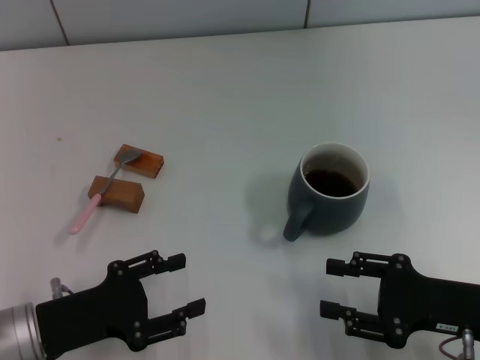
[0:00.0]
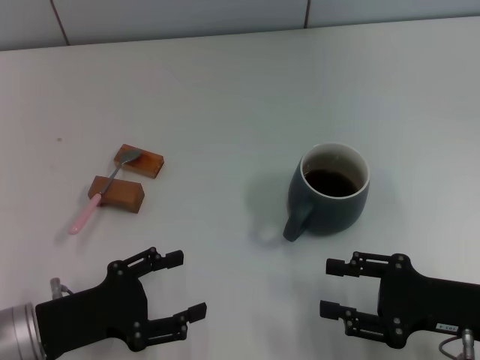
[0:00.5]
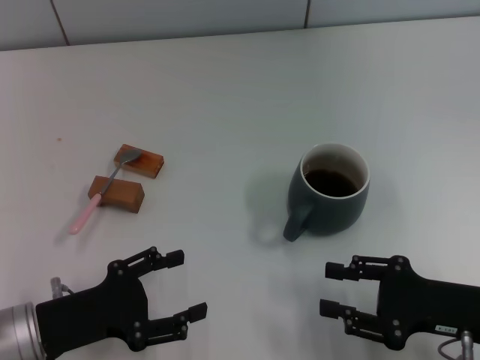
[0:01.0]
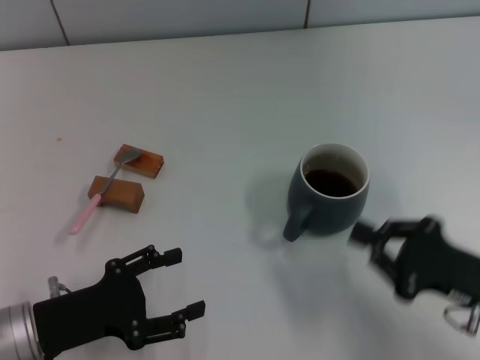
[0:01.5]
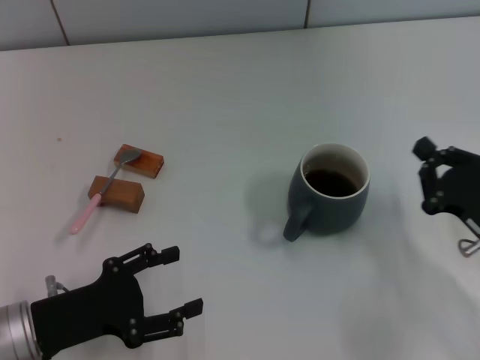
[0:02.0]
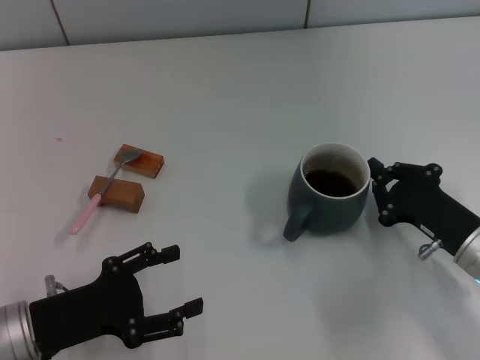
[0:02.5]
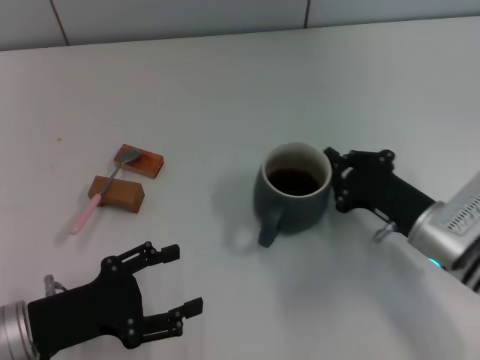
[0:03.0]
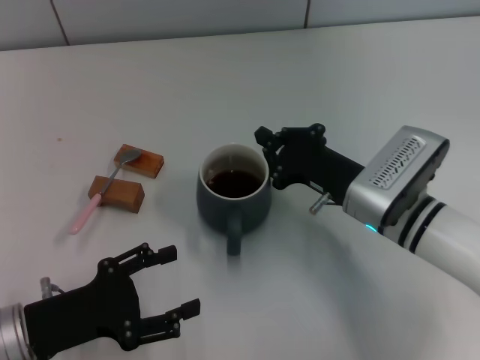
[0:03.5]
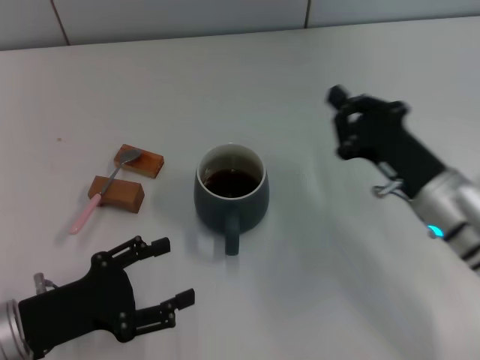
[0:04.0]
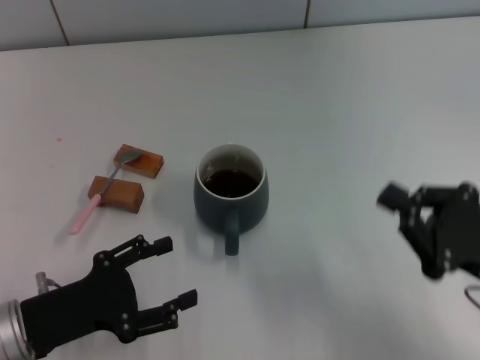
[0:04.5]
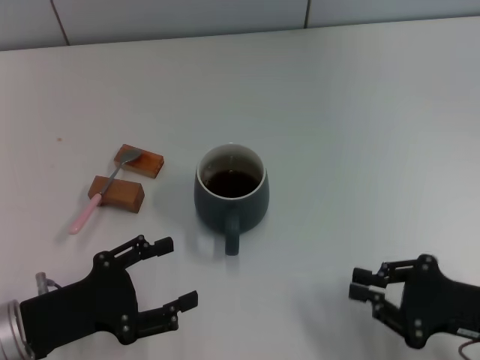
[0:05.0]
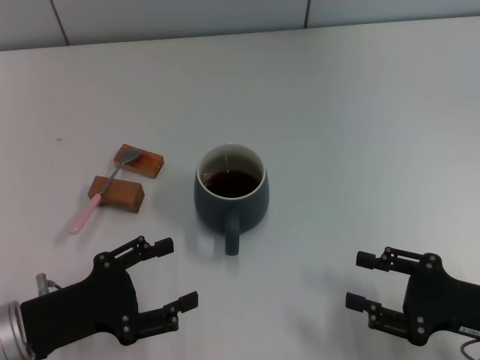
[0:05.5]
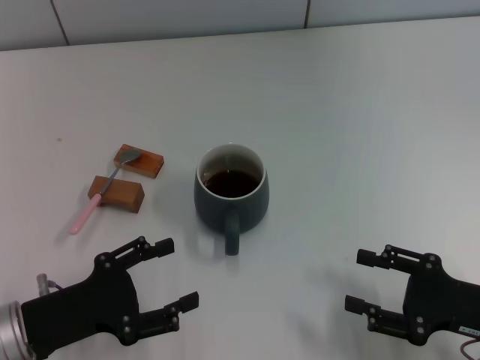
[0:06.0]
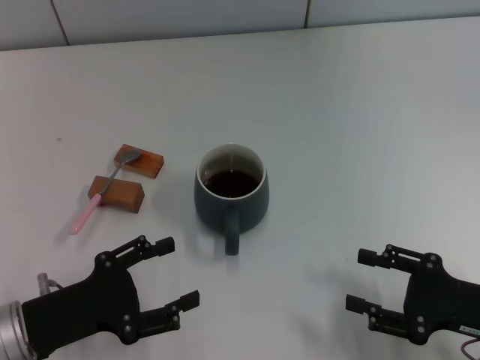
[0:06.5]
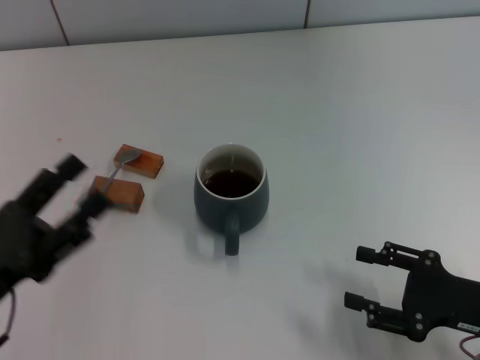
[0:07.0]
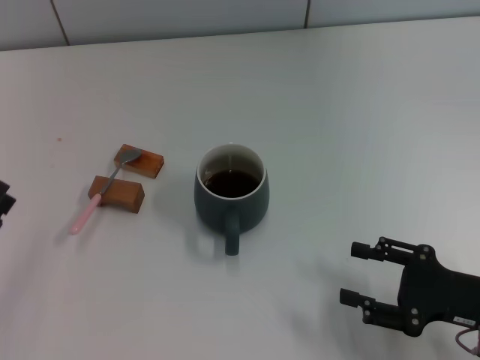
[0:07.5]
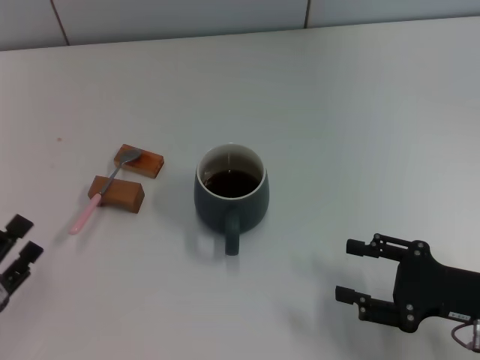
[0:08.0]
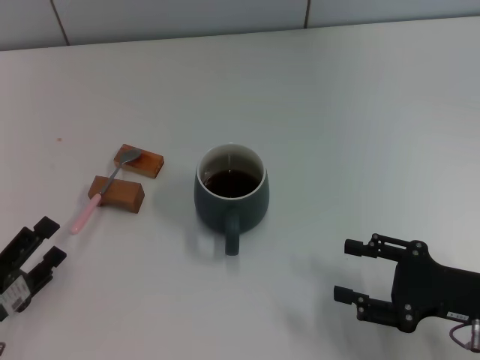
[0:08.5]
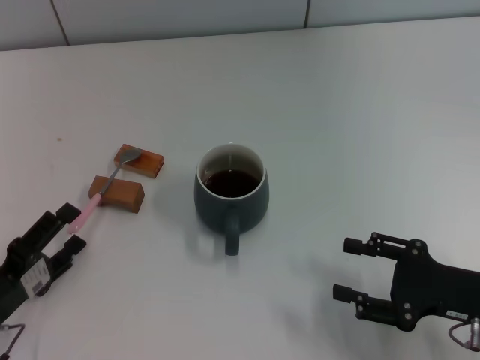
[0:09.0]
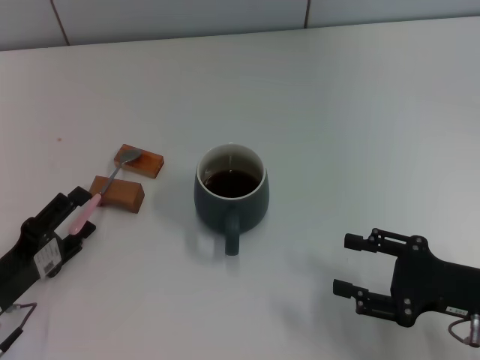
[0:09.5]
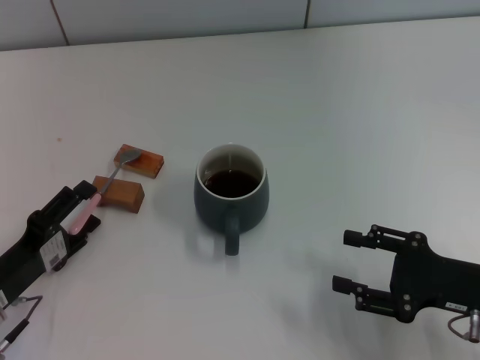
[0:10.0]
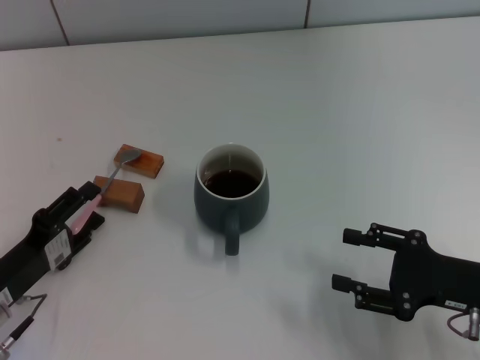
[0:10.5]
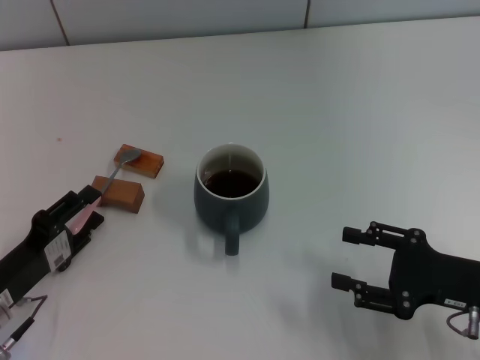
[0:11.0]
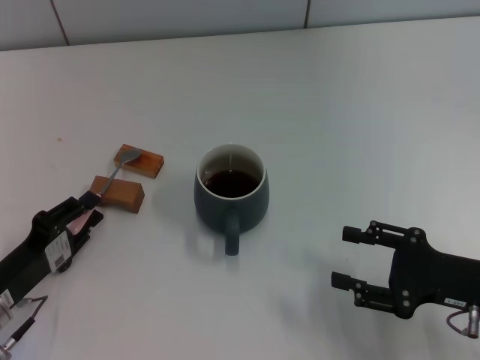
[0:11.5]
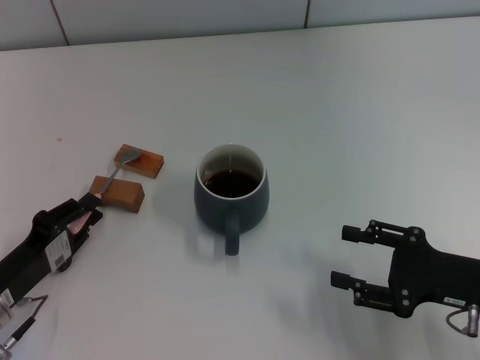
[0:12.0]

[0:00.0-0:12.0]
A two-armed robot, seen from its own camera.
Task of the whole recording: Move the grey cup to the center, lift the pink spoon, stir it three times in the cup, and put the spoon into the cup.
Step, 0:00.0 to 0:03.5: Move the cup with coffee to the center of view with the right gripper.
0:00.0 to 0:02.0: The right gripper closes.
0:02.0 to 0:04.0: The right gripper goes roughly 10 cm to the left and forward.
0:04.0 to 0:06.0: The right gripper moves backward and to the right, roughly 15 cm, and opens its fingers.
0:06.0 to 0:08.0: The left gripper travels to the left and backward by roughly 10 cm.
0:08.0 to 0:10.0: The left gripper travels forward by some 5 cm.
0:10.0 to 0:12.0: The left gripper closes its fingers.

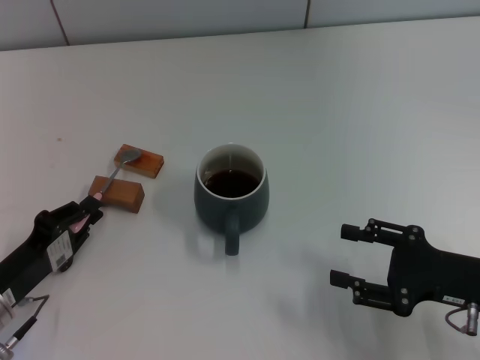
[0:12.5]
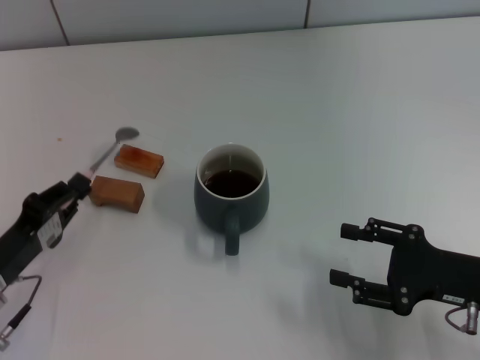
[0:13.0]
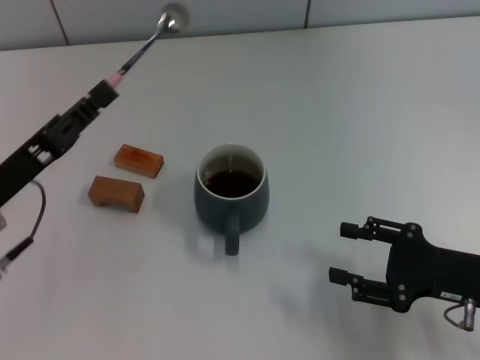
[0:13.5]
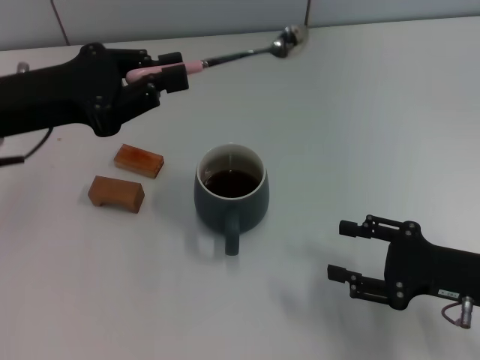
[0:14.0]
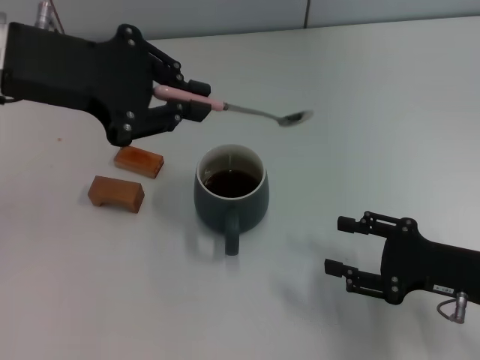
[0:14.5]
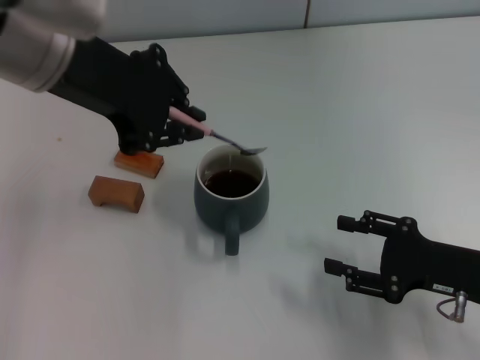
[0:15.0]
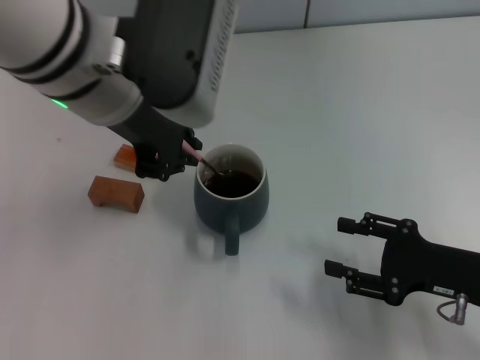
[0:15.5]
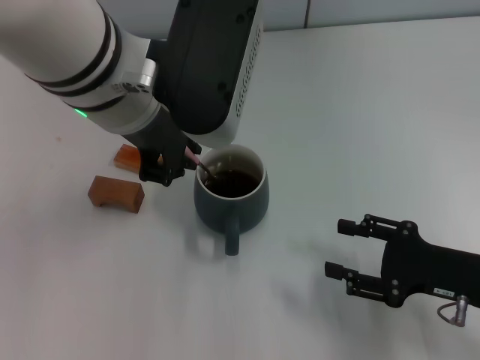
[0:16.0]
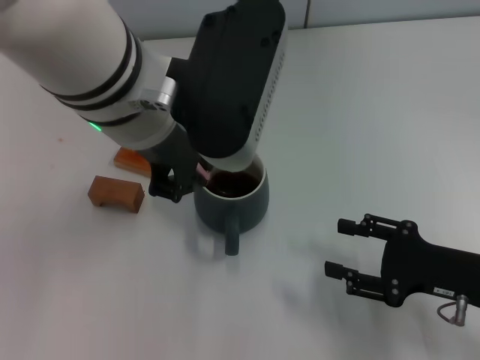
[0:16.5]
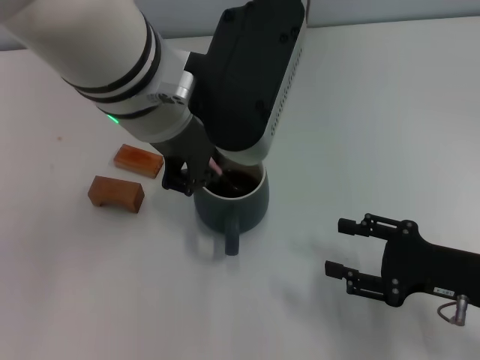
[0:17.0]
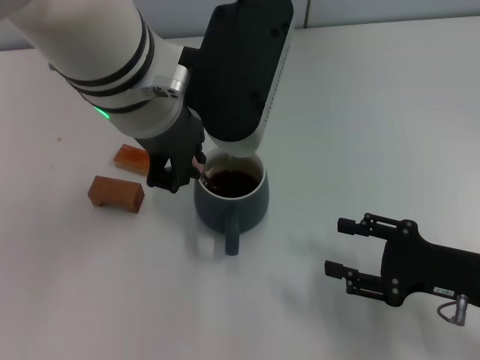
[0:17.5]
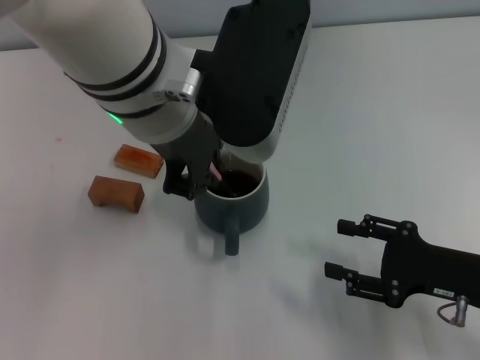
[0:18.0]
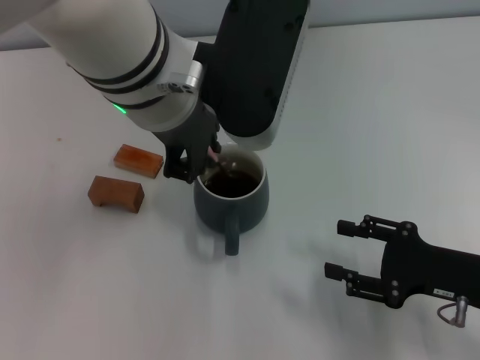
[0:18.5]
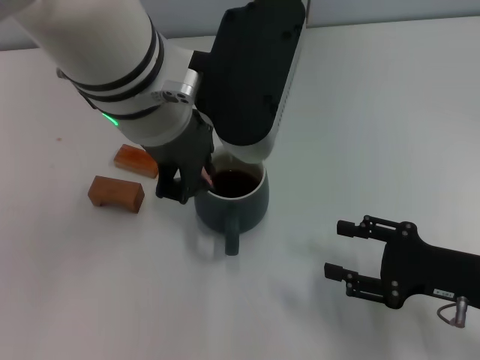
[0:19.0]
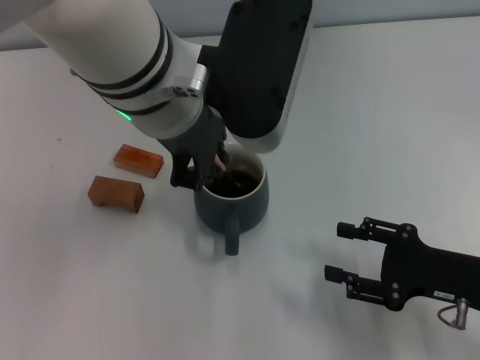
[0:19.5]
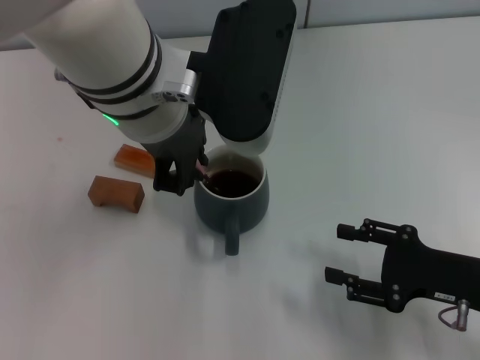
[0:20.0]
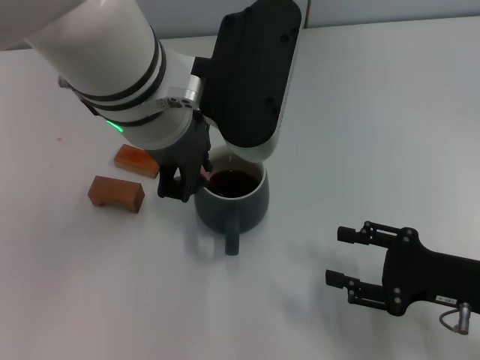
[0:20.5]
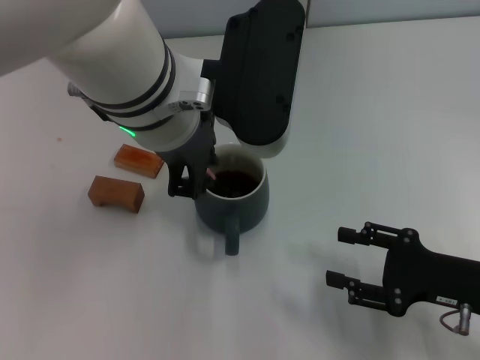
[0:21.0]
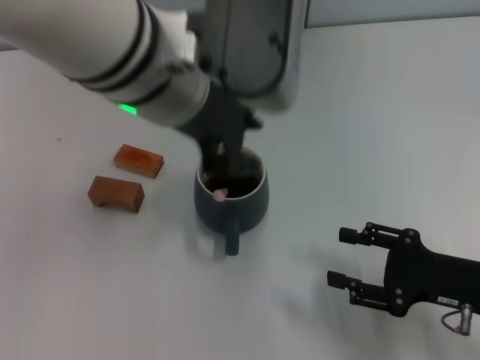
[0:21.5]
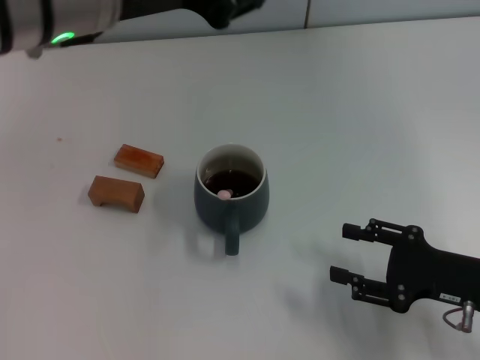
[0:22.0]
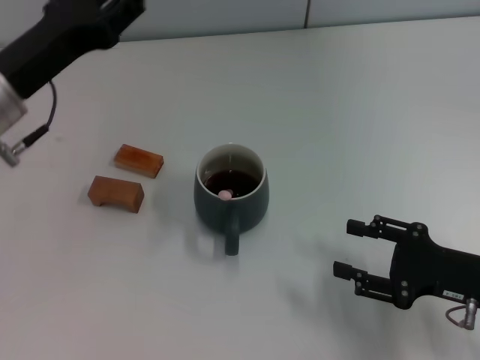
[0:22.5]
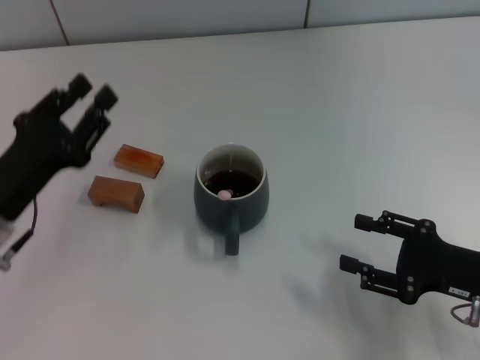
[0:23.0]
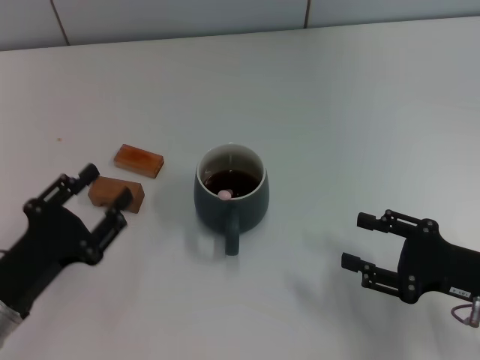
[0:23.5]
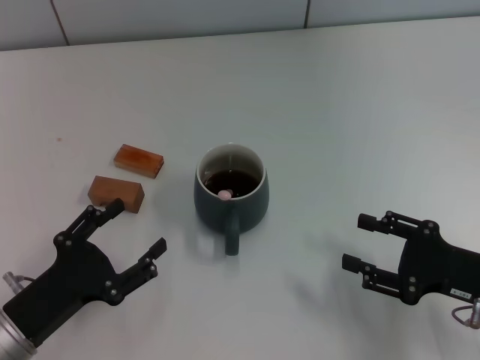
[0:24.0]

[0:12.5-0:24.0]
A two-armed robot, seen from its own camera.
Task of the whole recording: Move the grey cup to the center, lift the pink spoon, stir it three times in the cup, and put the spoon into the cup.
Step, 0:13.5 to 0:21.0: Stir the coffee in the cup with the left gripper.
0:12.5 to 0:14.5: The left gripper moves upward and forward, roughly 30 cm.
0:14.5 to 0:16.5: The left gripper moves to the right, some 15 cm.
0:16.5 to 0:20.0: The grippers stay close to where they were, moving slightly.
0:20.0 to 0:22.0: The left gripper is displaced to the left by roughly 5 cm, and opens up.
0:22.0 to 0:24.0: The left gripper travels downward, backward and to the left by about 30 cm, and opens up.
